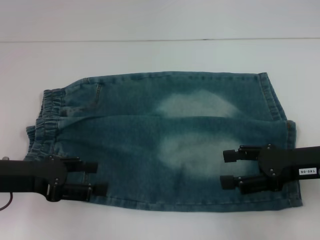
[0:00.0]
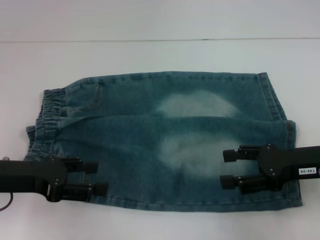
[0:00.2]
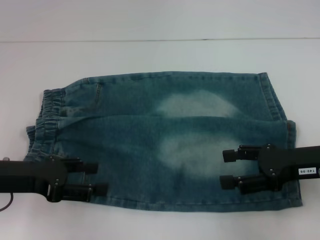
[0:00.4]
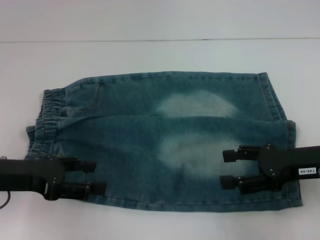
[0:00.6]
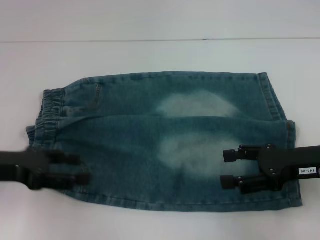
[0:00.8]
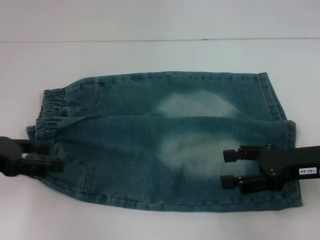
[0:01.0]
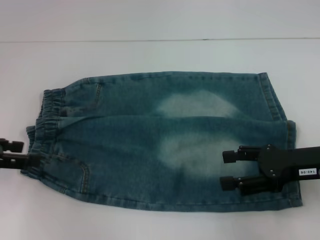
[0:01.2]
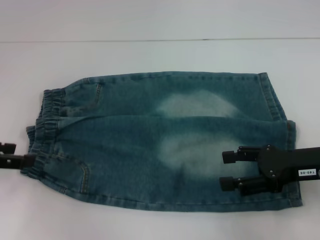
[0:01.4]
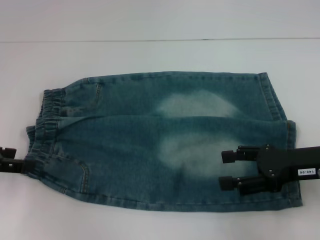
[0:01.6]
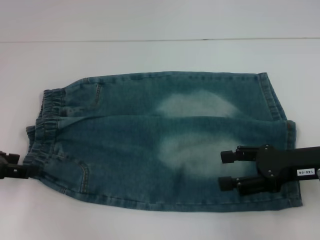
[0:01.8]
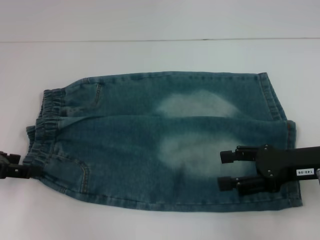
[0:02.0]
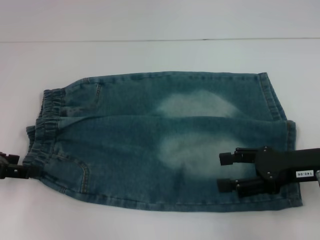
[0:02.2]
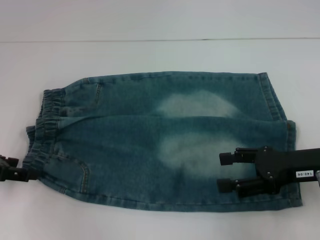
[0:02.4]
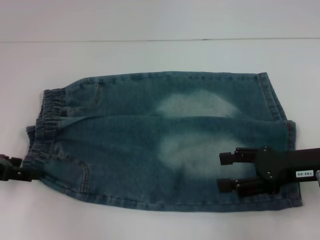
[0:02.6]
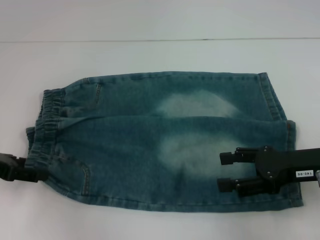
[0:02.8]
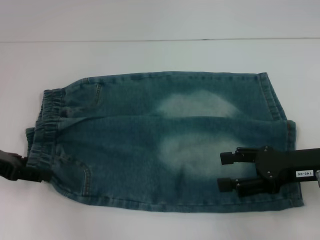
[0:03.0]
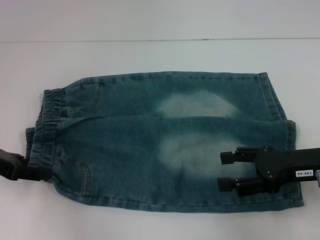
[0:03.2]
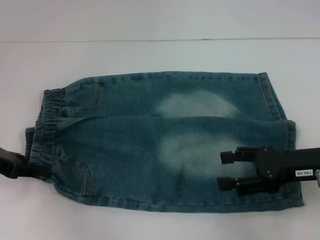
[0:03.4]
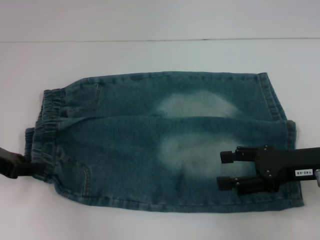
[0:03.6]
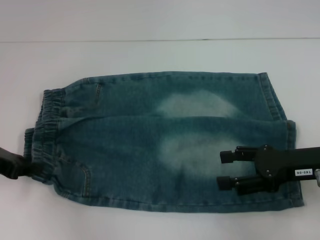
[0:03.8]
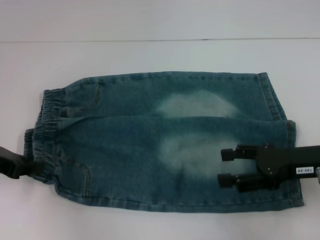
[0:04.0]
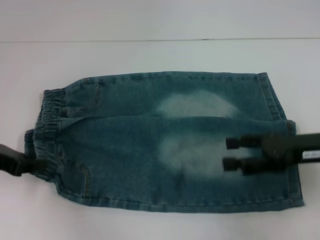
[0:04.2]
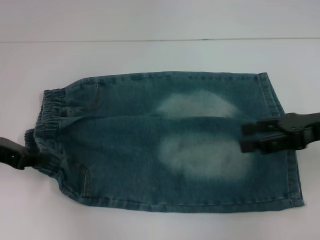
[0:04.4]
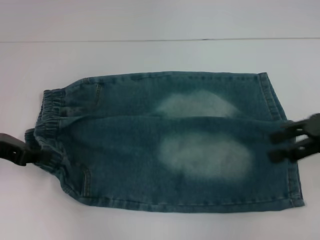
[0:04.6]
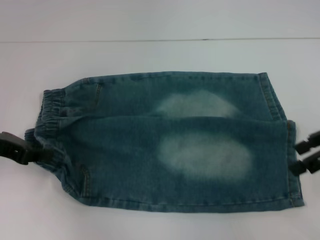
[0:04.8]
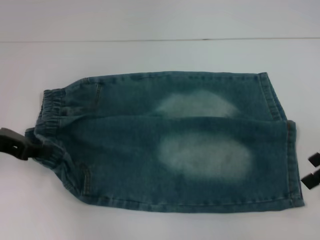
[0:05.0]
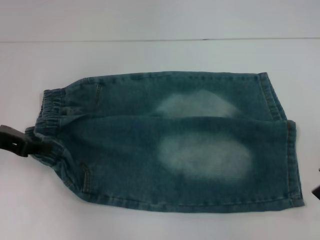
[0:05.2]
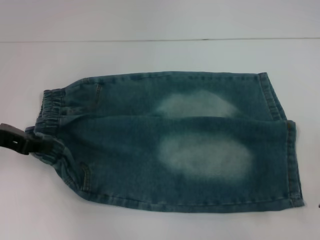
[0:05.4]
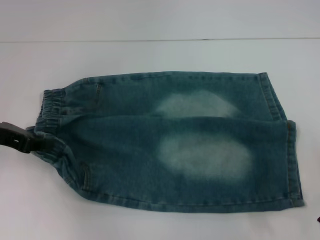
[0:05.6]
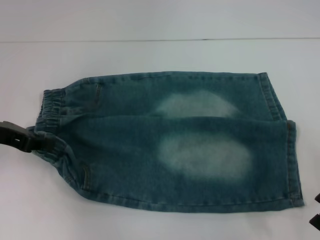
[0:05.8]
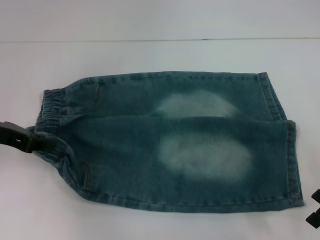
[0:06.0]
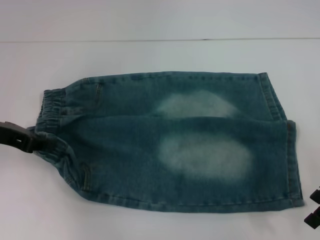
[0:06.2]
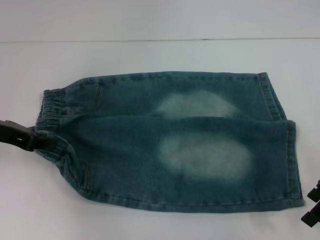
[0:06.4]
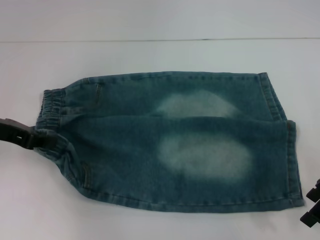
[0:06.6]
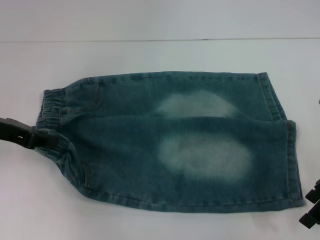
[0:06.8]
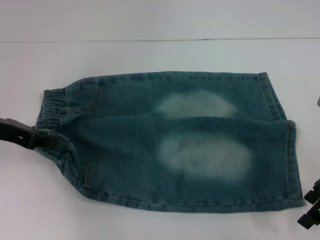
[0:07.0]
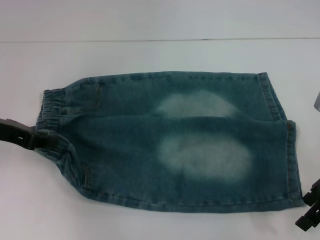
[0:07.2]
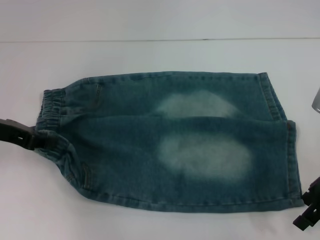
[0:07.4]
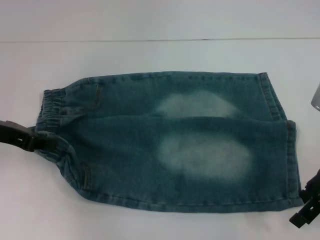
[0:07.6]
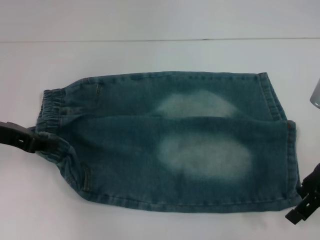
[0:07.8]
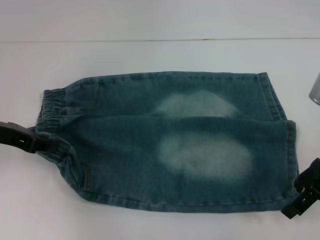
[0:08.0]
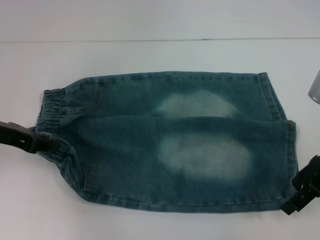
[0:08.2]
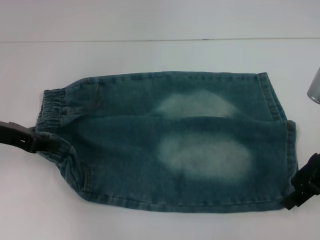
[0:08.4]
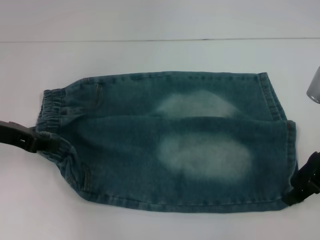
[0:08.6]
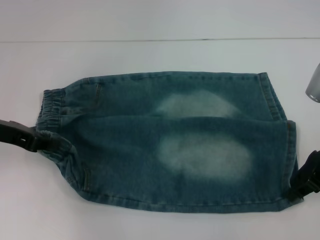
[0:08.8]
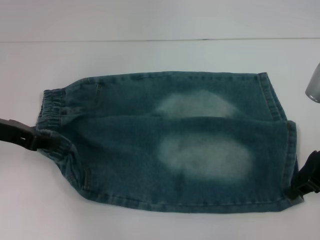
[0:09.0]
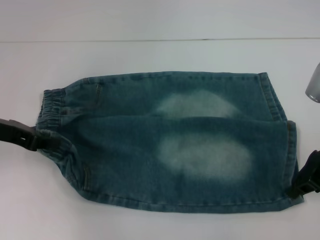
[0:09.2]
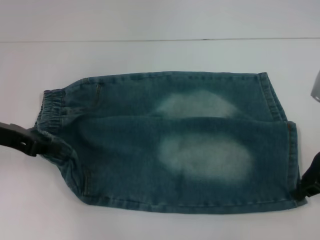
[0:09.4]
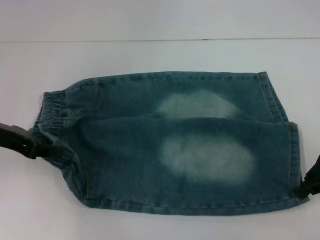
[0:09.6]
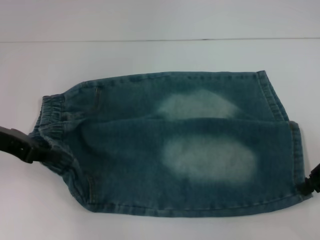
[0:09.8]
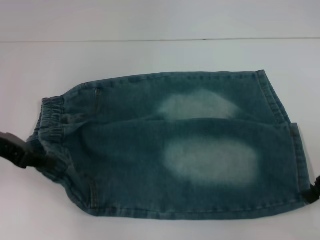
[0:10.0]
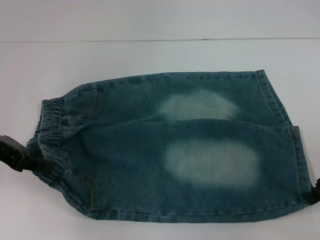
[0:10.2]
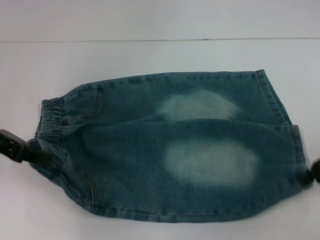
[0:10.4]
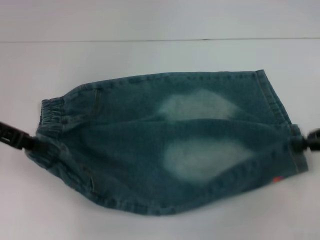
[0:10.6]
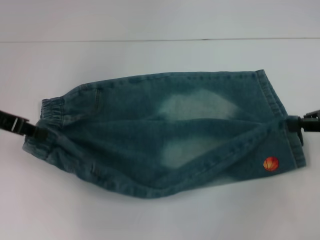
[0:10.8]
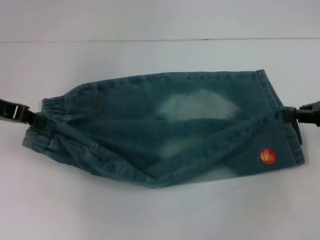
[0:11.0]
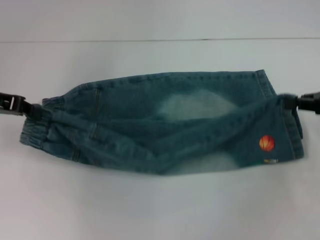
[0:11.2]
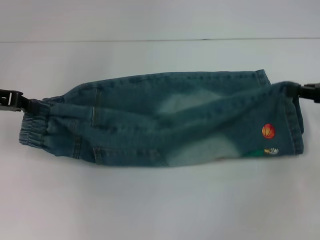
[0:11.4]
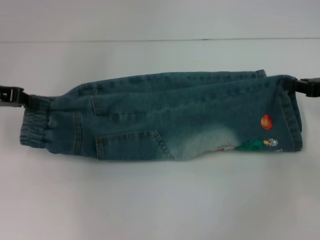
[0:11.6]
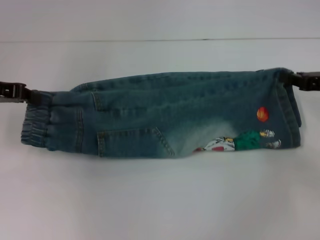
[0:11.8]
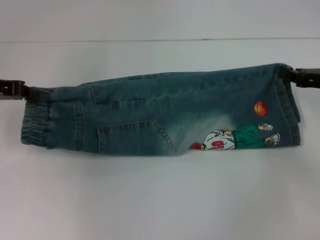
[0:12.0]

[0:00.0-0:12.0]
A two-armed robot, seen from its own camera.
Step, 0:00.0 to 0:04.0: Hold the lower left waistband with your left hand.
Step, 0:04.2 to 0:09.4: Grab the lower right pant leg with your right hand.
0:00.0 to 0:01.6: The left gripper moves to the left, approximately 10 cm.
0:01.6 to 0:03.0: The grippers move only a little.
0:03.0 to 0:04.4: The right gripper heads upward, covering about 5 cm. Meanwhile the left gripper closes up.
0:06.0 to 0:07.6: The grippers make only small movements.
0:07.6 to 0:09.0: The right gripper closes its fingers.
0:09.0 to 0:10.4: The right gripper goes roughly 5 cm to the right.
0:10.4 to 0:12.0: The left gripper ends up approximately 5 cm from where it was. The right gripper travels forward by some 5 cm.

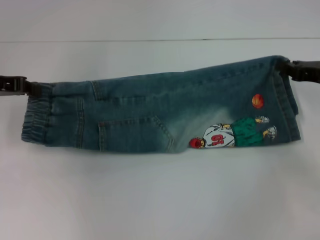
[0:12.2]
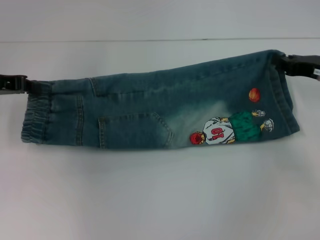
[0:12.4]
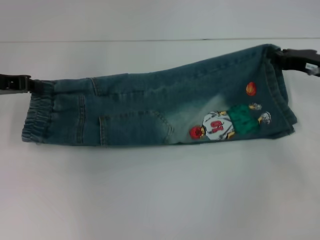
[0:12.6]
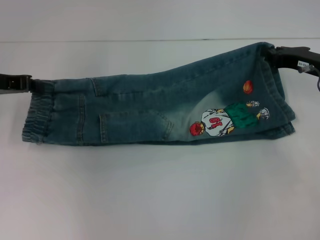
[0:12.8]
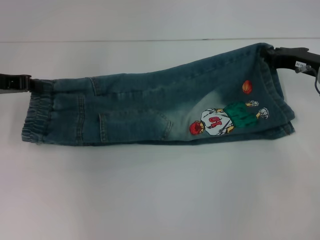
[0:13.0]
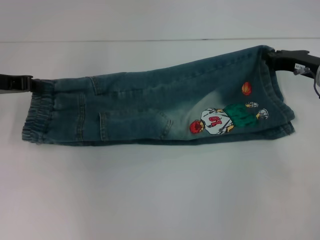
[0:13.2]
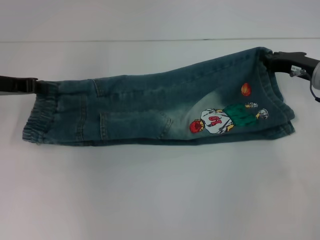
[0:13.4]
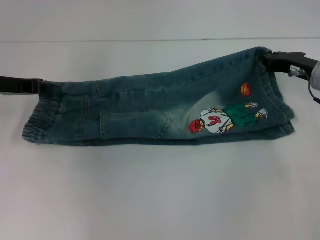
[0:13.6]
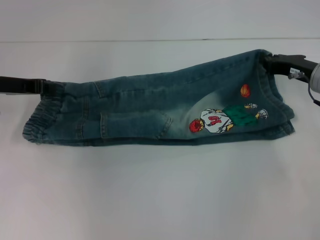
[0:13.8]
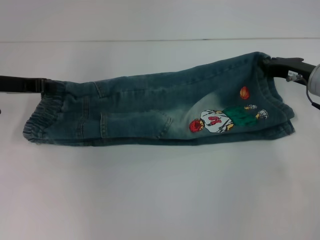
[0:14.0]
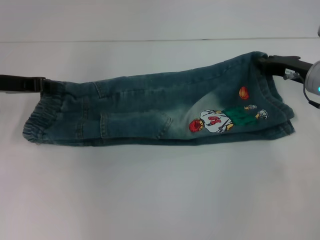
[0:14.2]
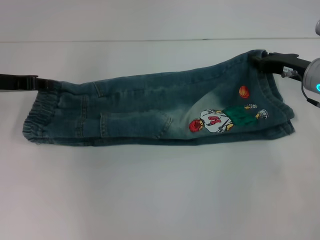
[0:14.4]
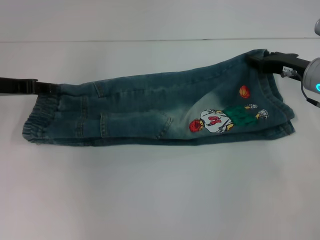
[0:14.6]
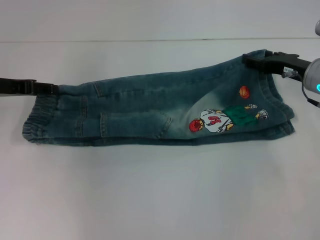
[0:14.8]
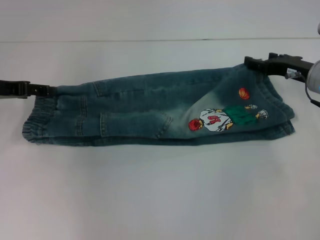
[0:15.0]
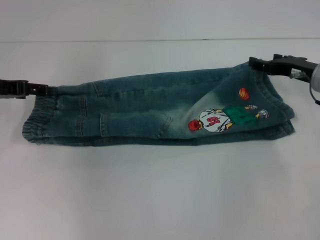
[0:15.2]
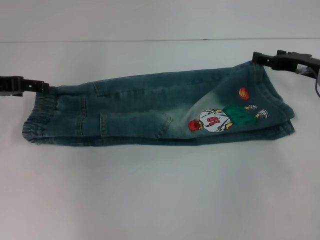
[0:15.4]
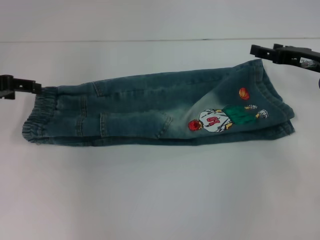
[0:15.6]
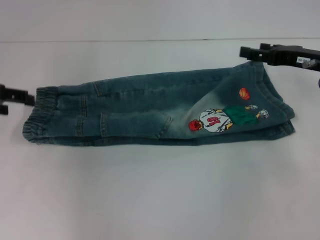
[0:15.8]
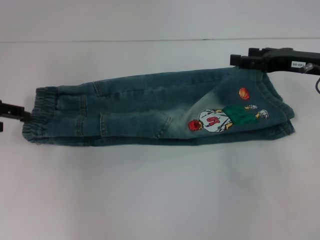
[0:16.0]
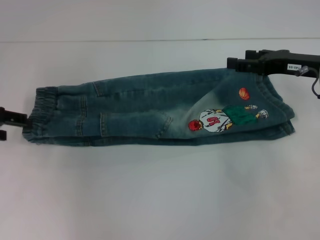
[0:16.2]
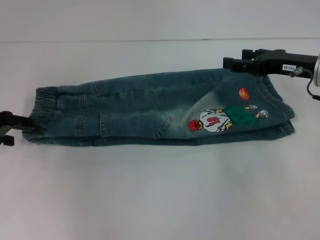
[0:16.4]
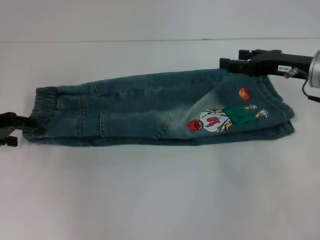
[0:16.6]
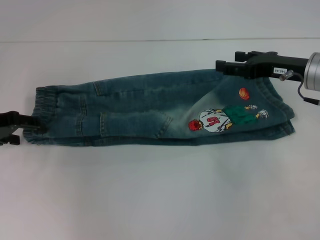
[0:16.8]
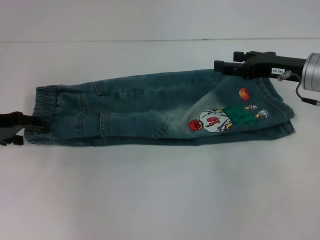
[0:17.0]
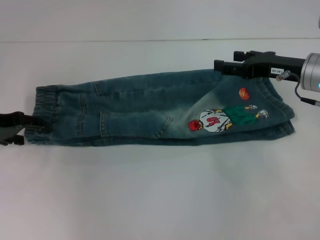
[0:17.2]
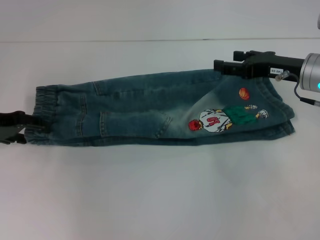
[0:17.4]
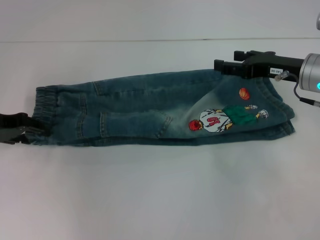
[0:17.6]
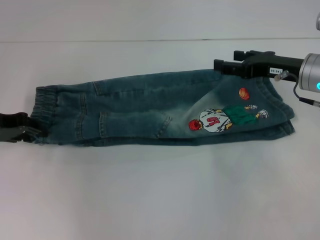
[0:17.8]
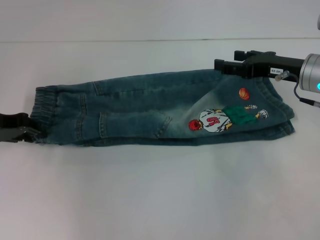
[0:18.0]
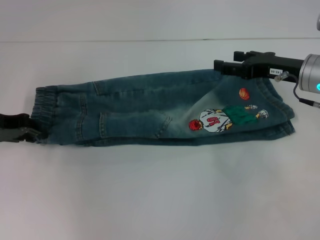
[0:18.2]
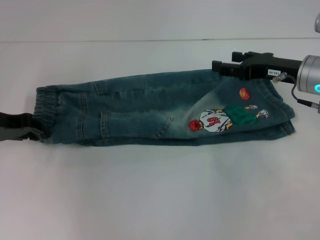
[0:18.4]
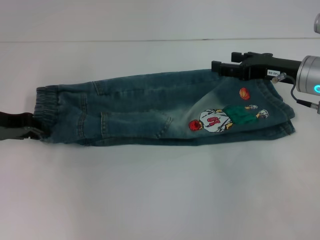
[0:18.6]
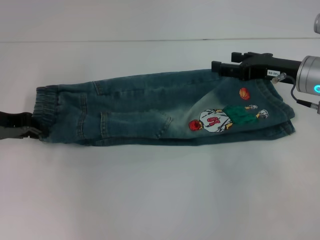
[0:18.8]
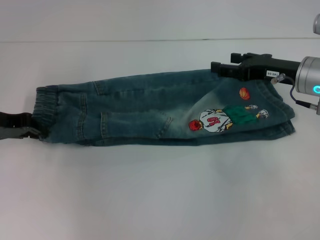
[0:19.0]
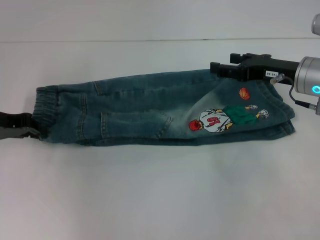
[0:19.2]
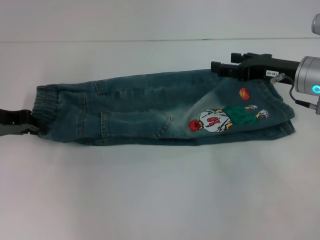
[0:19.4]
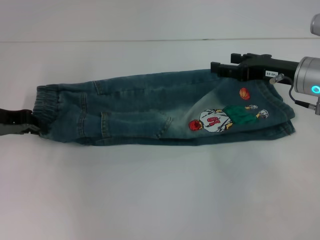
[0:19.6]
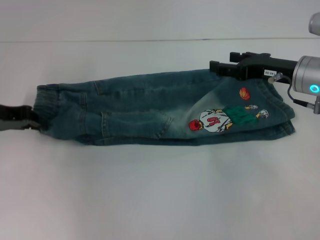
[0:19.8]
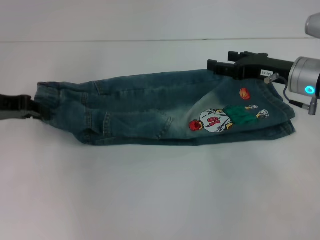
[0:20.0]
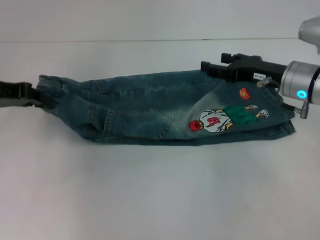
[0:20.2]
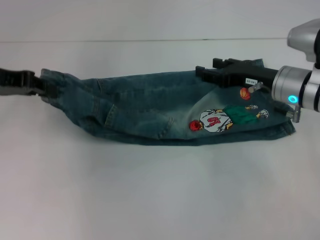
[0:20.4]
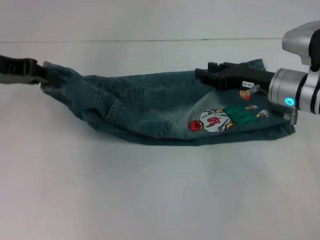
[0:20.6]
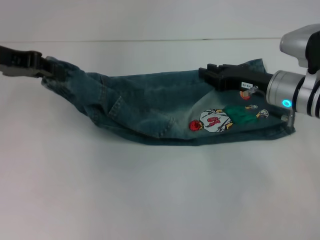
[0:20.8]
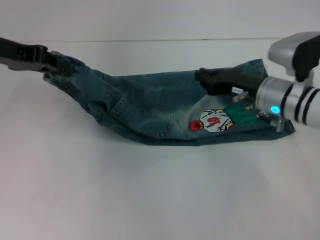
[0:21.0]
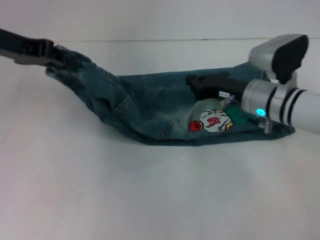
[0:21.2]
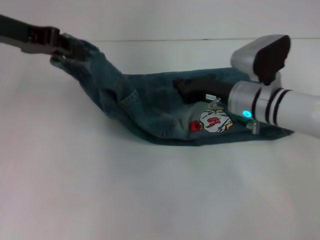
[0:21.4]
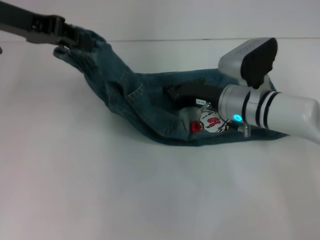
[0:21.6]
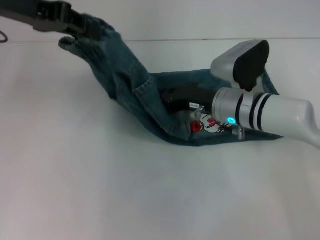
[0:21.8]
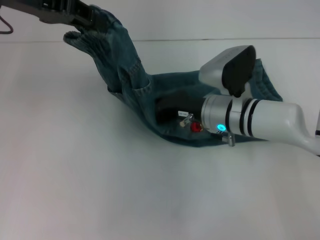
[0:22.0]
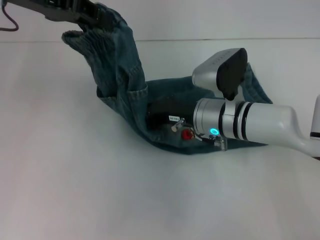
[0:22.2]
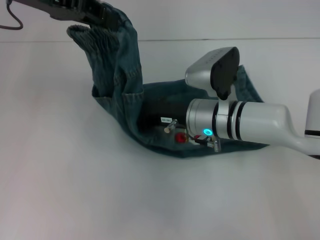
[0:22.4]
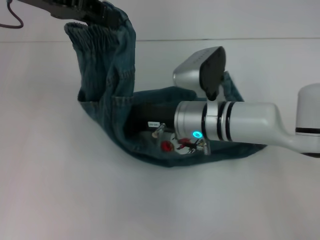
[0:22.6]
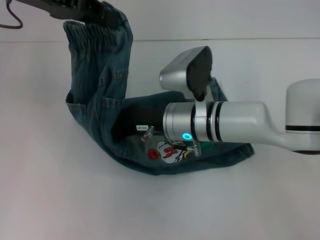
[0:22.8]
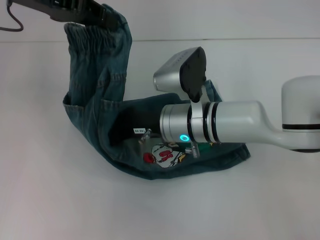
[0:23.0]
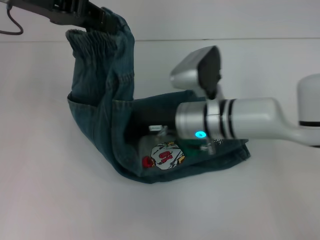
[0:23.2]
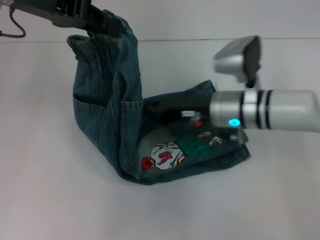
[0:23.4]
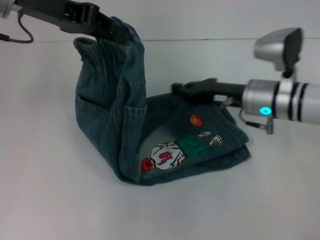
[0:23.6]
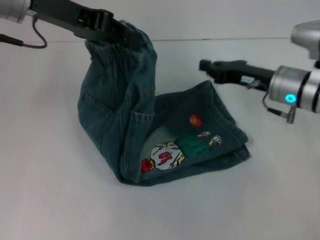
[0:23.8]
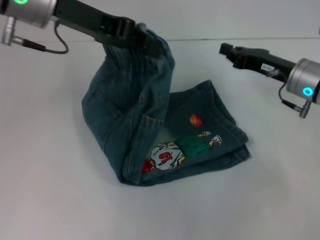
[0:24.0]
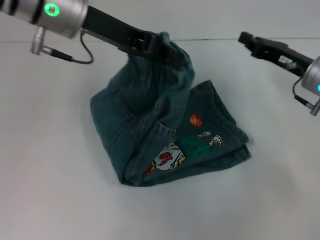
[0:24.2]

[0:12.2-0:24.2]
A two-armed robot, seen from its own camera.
Step, 0:12.2 to 0:15.2: Fold upward with your right hand.
Step, 0:15.4 to 0:18.8: Hold the waistband with your left hand.
Step, 0:19.0 to 0:23.0: Press the middle of the pants with your right hand.
0:12.2 to 0:13.8: The right gripper moves roughly 5 cm.
0:13.8 to 0:15.2: The right gripper opens. Meanwhile the left gripper opens up.
0:16.6 to 0:18.2: The left gripper closes.
0:18.2 to 0:19.8: The grippers make only small movements.
0:19.8 to 0:21.2: The right gripper travels to the left by about 5 cm, and closes up. Meanwhile the left gripper heads upward, covering approximately 10 cm.
0:21.2 to 0:22.6: The right gripper moves to the left, about 10 cm; the left gripper moves upward, approximately 5 cm.
0:22.6 to 0:24.2: The left gripper goes approximately 10 cm to the right; the right gripper goes roughly 20 cm to the right.
